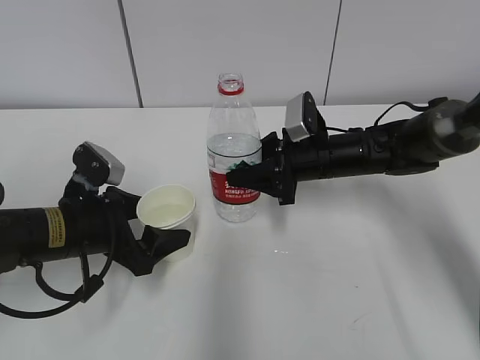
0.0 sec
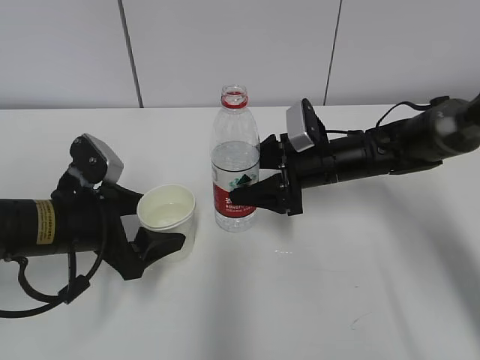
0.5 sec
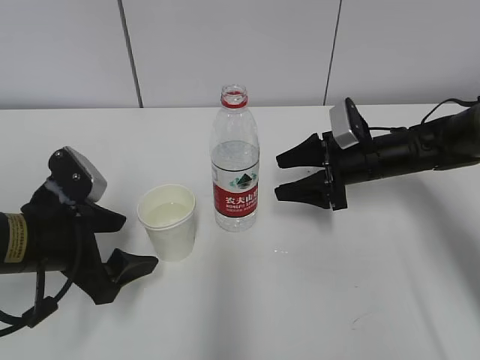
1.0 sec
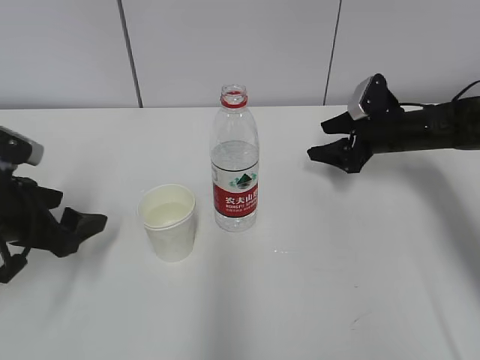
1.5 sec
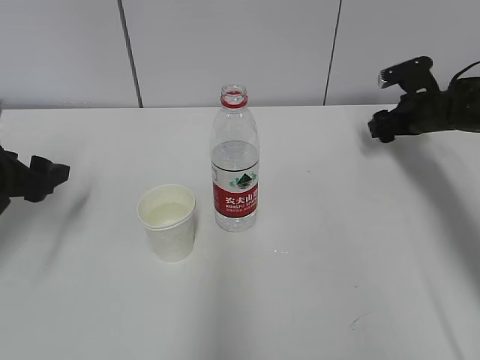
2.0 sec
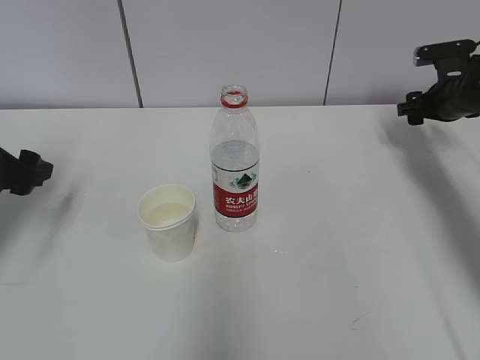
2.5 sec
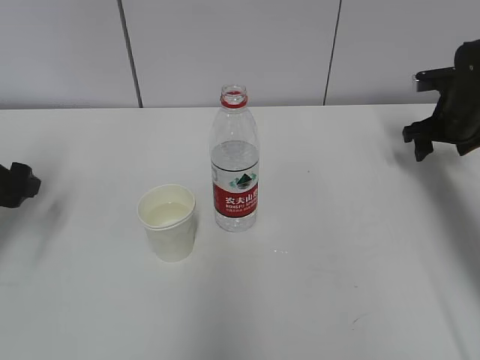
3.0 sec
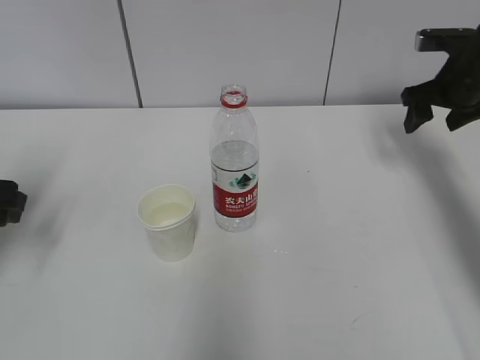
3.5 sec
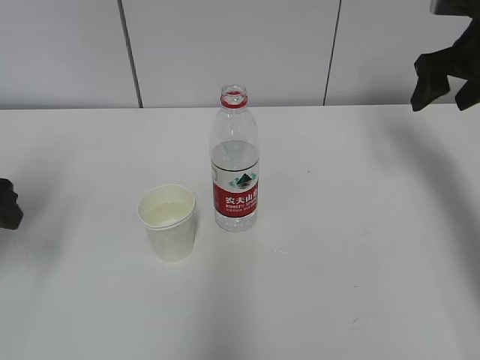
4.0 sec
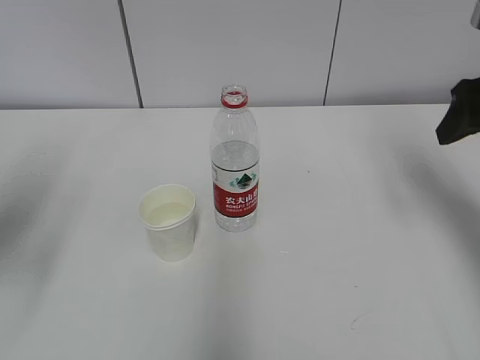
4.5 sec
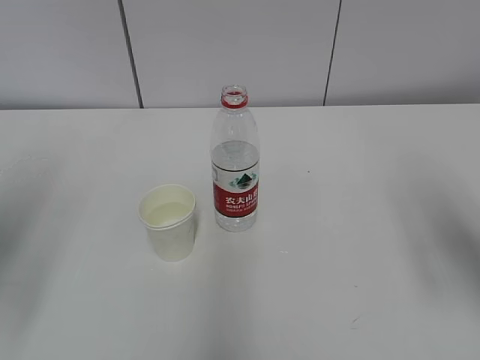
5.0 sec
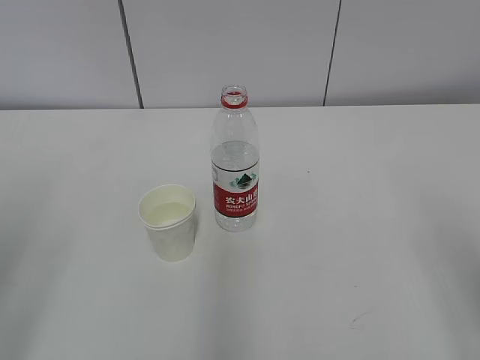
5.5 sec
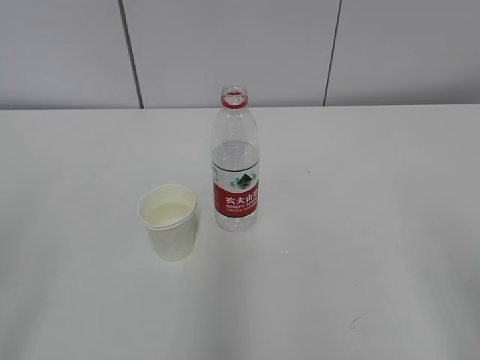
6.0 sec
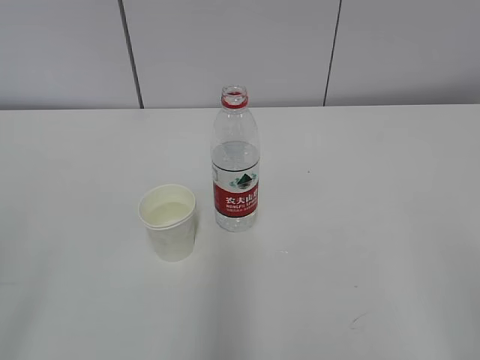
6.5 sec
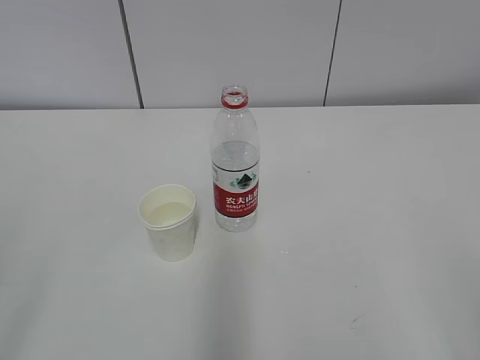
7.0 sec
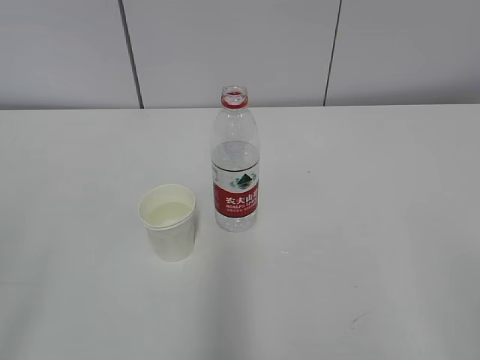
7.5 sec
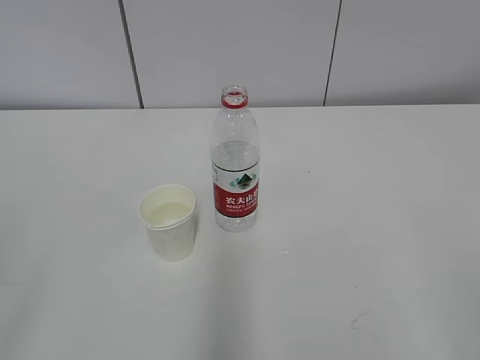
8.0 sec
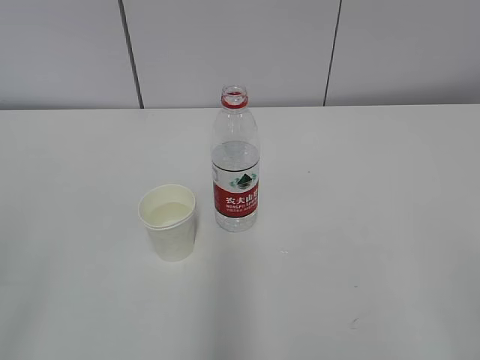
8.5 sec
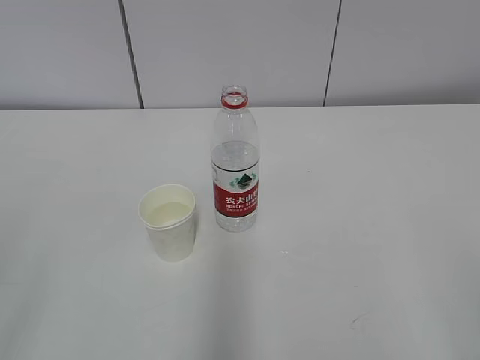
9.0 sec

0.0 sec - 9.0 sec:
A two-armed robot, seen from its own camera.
0.0 sec - 2.0 sec: The right gripper is displaced to the right and forward by roughly 20 cm, and opens up. The left gripper is displaced to the left and upward by about 15 cm.
2.0 sec - 4.5 sec: The right gripper is displaced backward and upward by about 25 cm. Meanwhile the left gripper is displaced upward and backward by roughly 15 cm.
4.5 sec - 7.0 sec: The two grippers go roughly 30 cm backward.
7.0 sec - 9.0 sec: Neither gripper changes place.

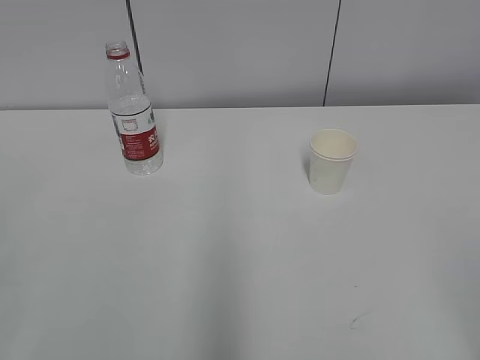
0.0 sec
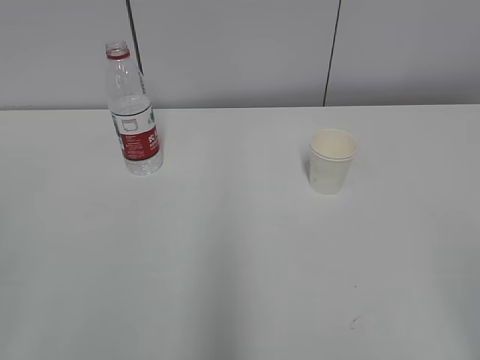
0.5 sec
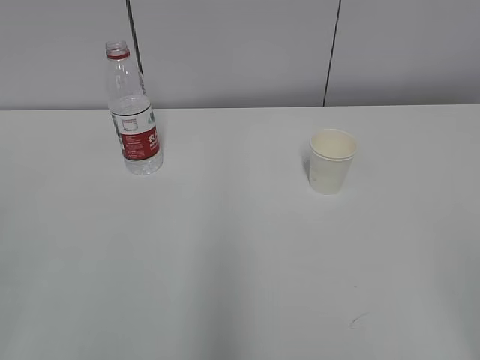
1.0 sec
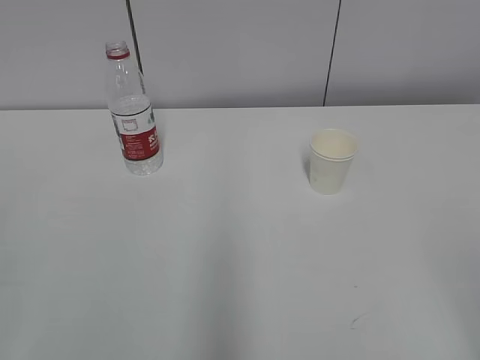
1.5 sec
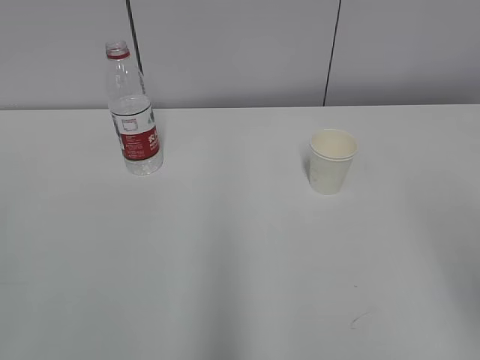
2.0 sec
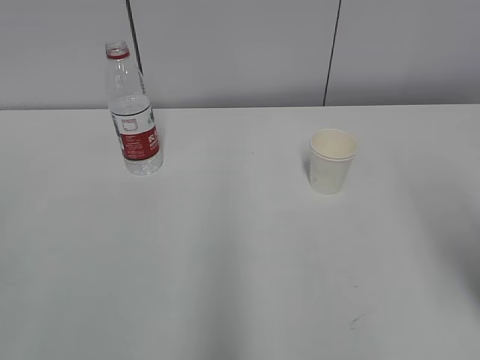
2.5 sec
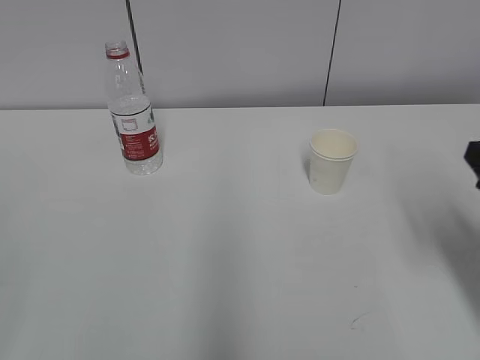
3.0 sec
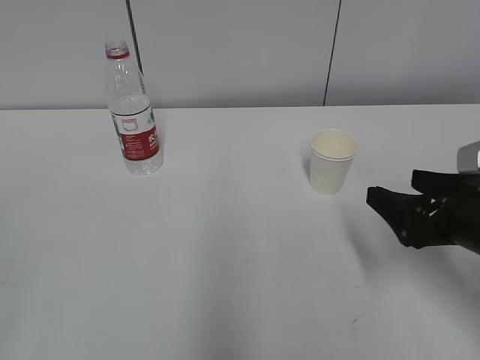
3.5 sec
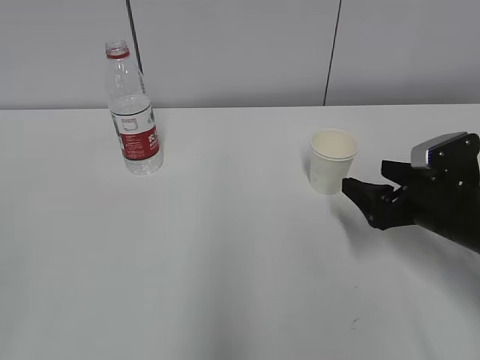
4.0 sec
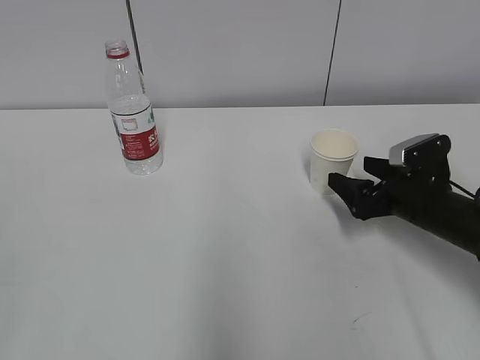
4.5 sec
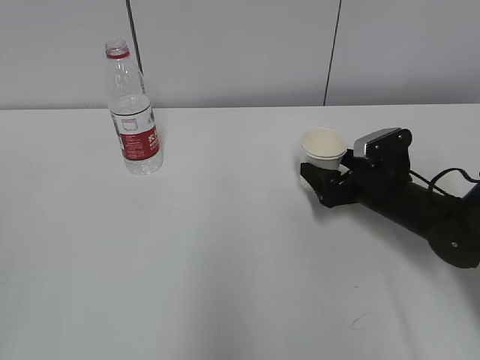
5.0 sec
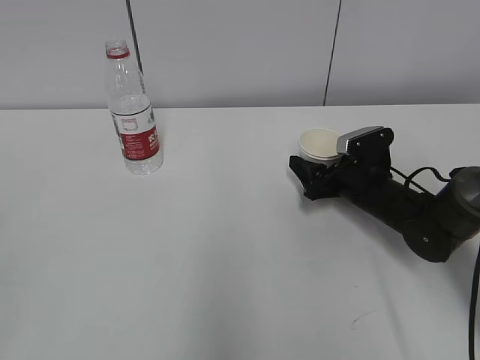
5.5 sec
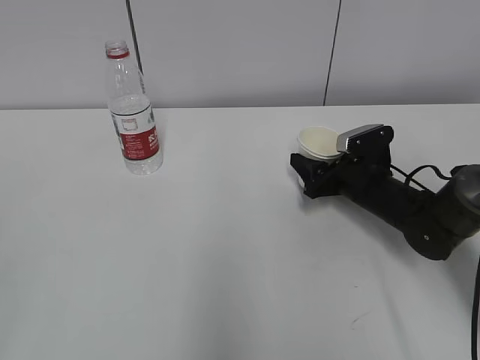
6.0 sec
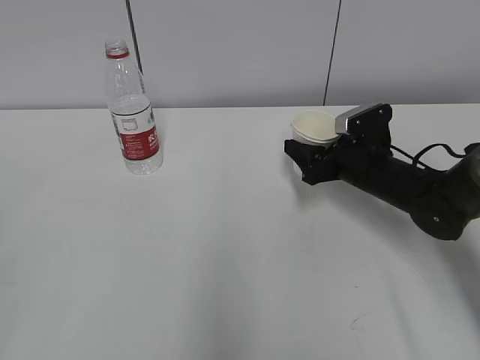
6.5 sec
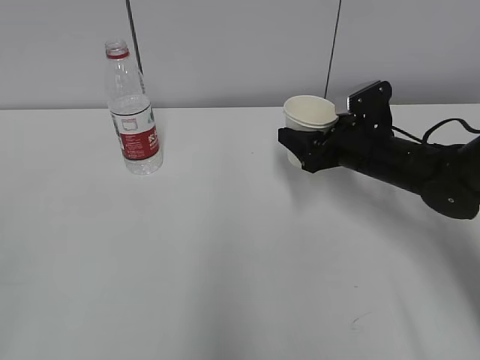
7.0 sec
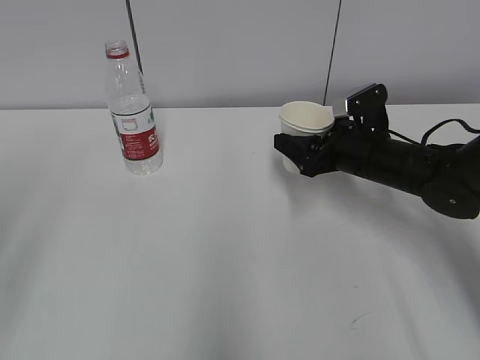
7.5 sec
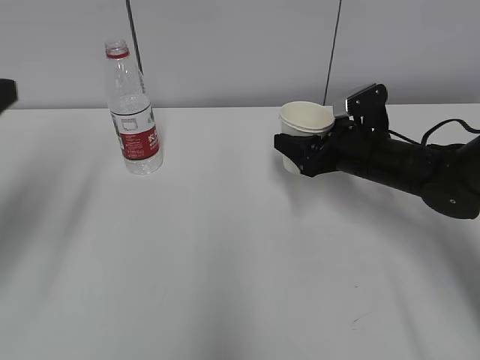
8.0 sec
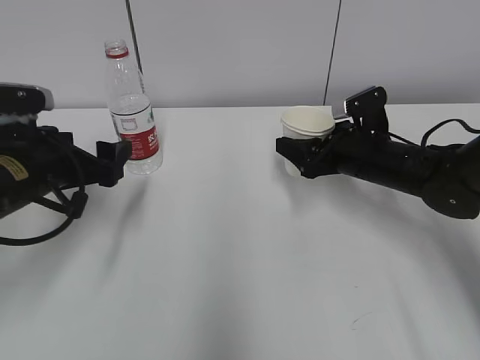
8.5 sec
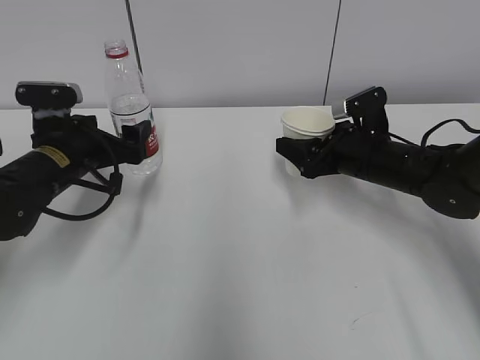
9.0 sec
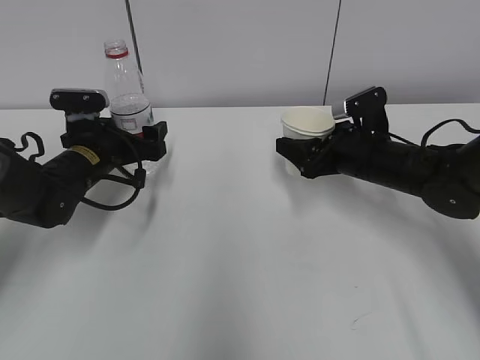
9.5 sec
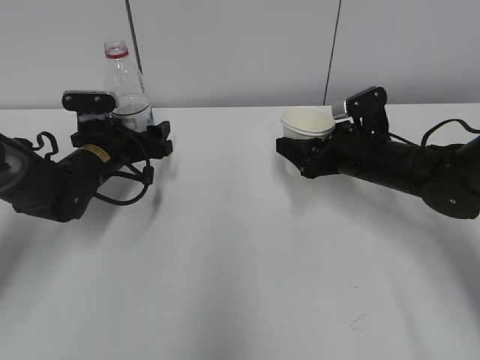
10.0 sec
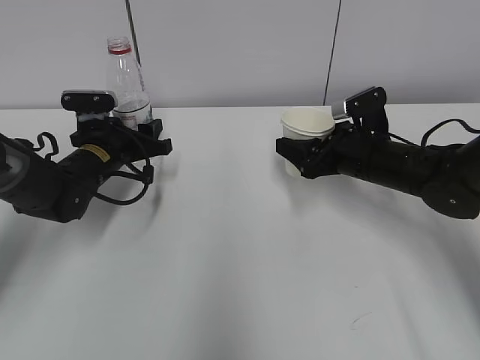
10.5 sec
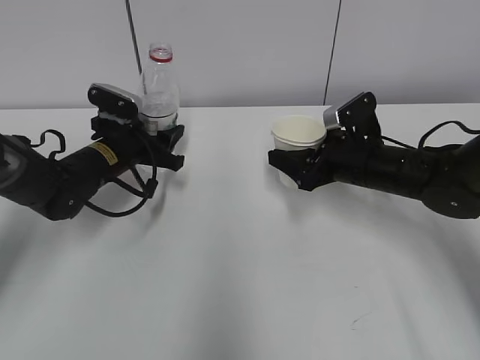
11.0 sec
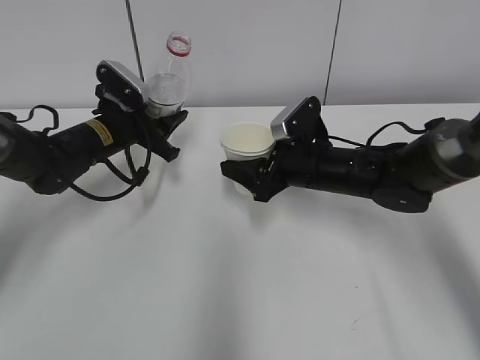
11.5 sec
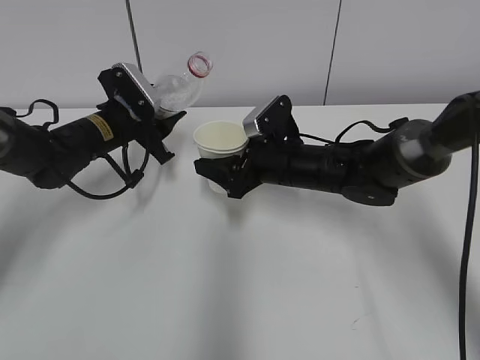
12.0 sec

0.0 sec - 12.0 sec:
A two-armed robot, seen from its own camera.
Step, 0.0 sec - 4.5 sec: Grab the paper cup with the right hand.
Step, 5.0 sec - 8.5 sec: Grab the water bottle with the left hand.
2.0 sec - 4.0 sec: The right gripper heads forward and downward, covering roughly 30 cm, and opens.
4.0 sec - 6.0 sec: The right gripper is displaced forward, downward and to the left by roughly 15 cm, and closes up.
6.0 sec - 8.0 sec: The left gripper goes roughly 25 cm forward, and opens; the right gripper shifts some 5 cm upward.
8.0 sec - 10.0 sec: The left gripper heads forward, downward and to the right, covering approximately 30 cm.
10.0 sec - 12.0 sec: The left gripper closes up. The right gripper goes some 10 cm to the left.

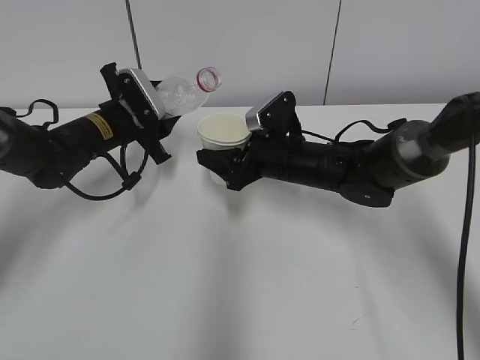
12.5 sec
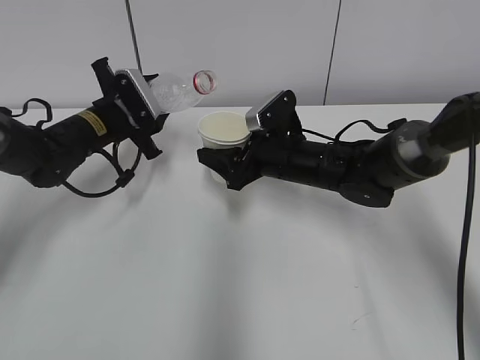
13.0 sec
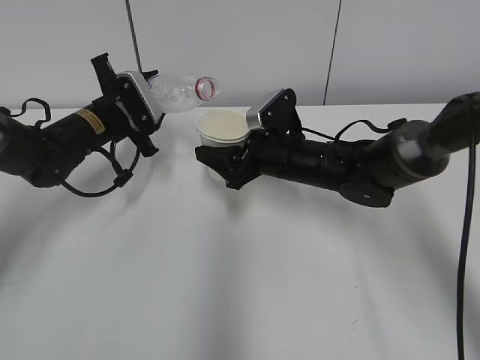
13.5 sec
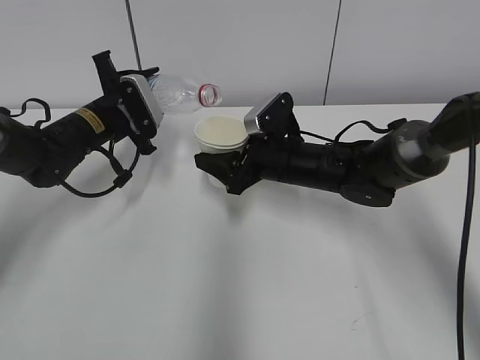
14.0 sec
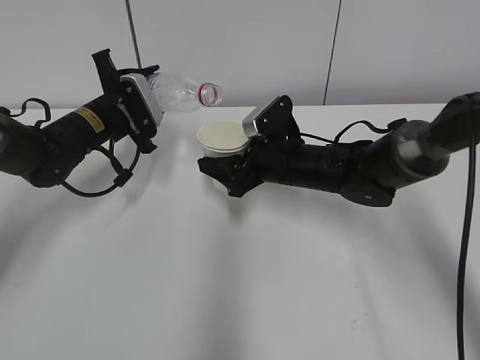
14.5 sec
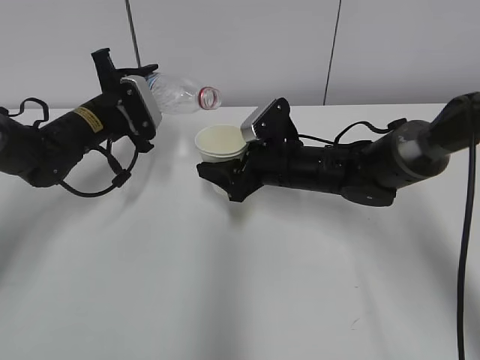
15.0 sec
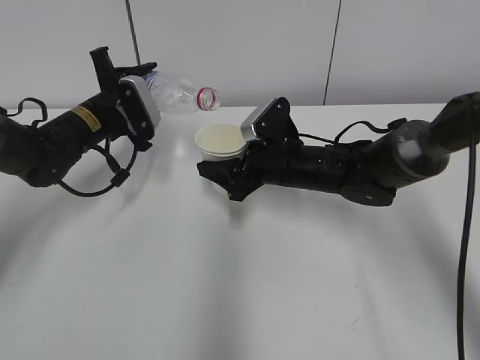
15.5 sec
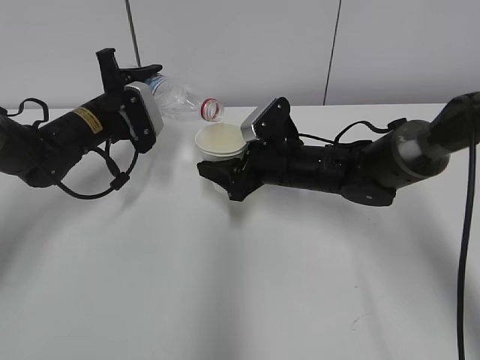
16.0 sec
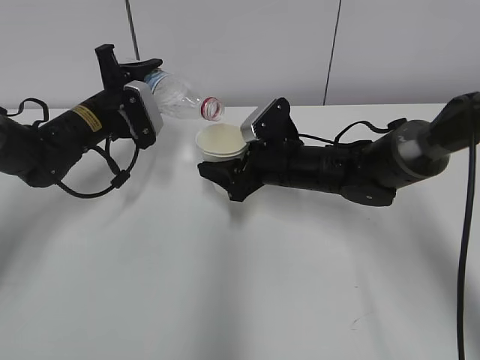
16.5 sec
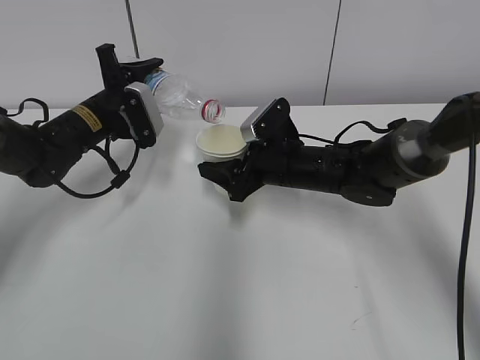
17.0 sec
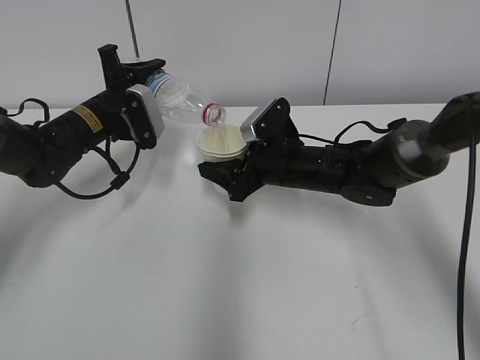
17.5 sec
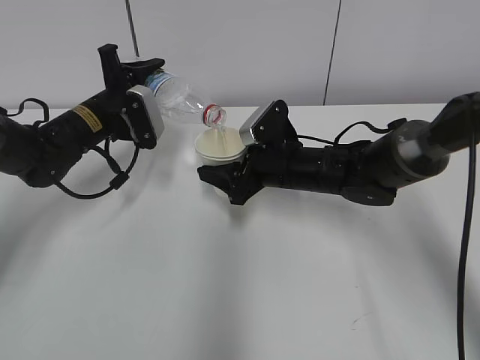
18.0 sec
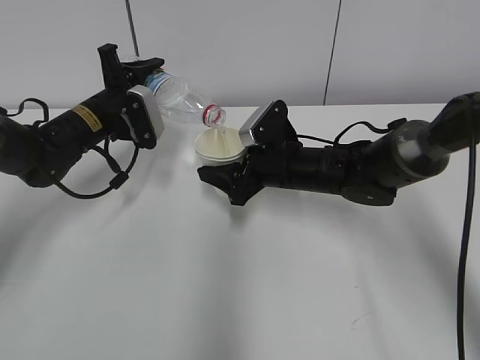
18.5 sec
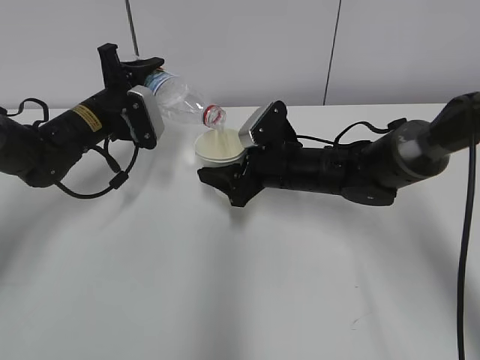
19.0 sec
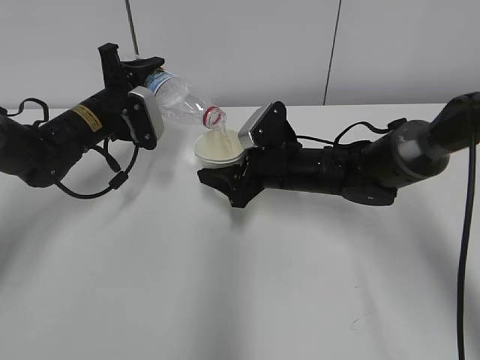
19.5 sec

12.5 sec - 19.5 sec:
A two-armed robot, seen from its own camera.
Step, 14.5 sec - 18.5 sec: Fill water with the right hand.
Step, 14.5 sec - 18.5 sec: Pour water with the left hand.
12.5 sec - 14.5 sec: The grippers stay close to where they were, moving slightly.
14.5 sec - 17.5 sec: The grippers move only a little.
17.5 sec - 19.5 sec: Both grippers stay put.
